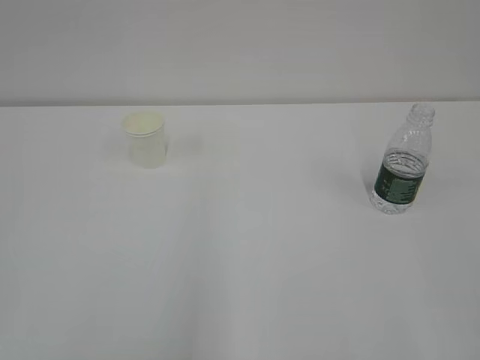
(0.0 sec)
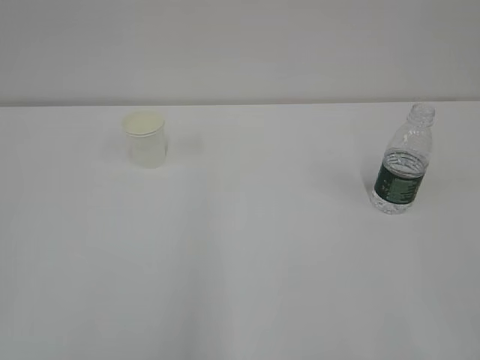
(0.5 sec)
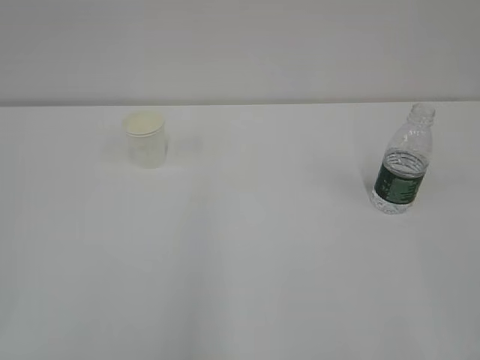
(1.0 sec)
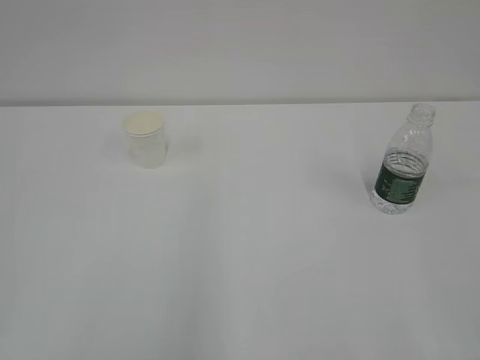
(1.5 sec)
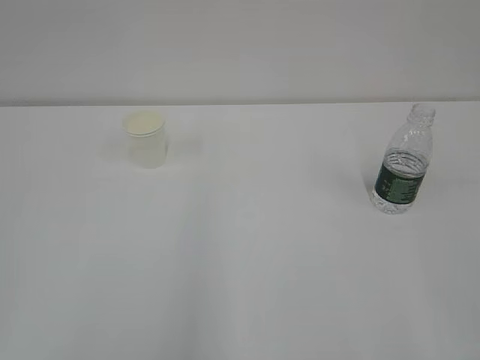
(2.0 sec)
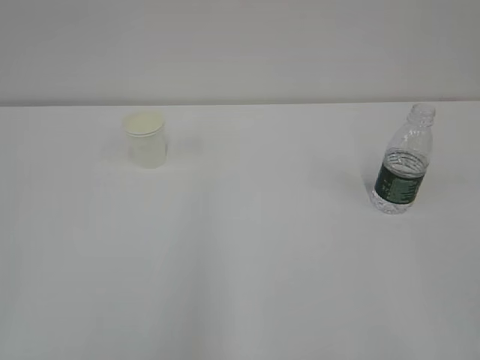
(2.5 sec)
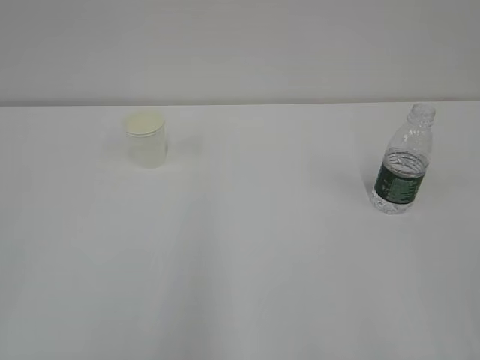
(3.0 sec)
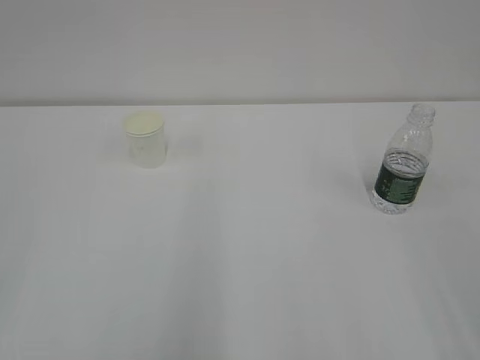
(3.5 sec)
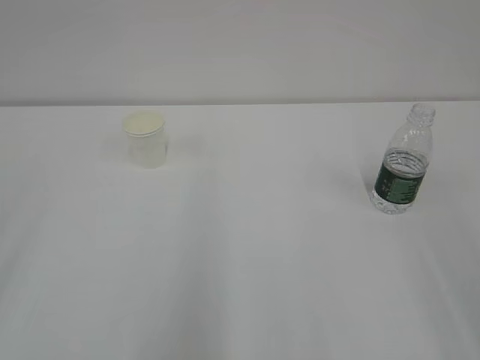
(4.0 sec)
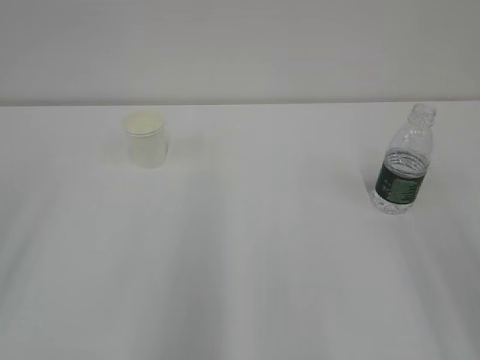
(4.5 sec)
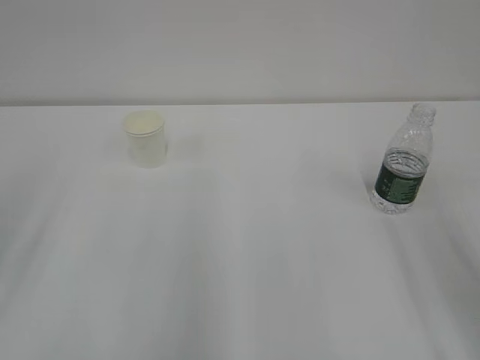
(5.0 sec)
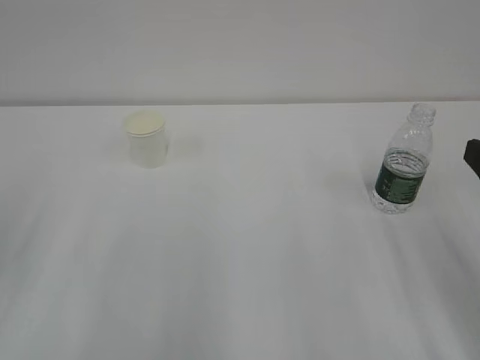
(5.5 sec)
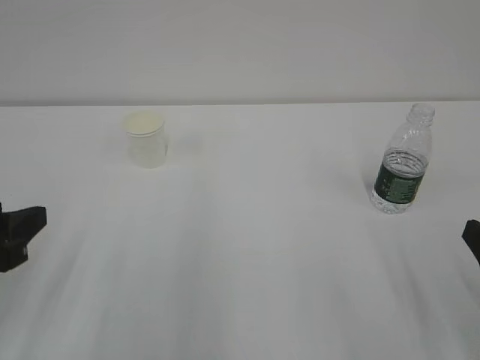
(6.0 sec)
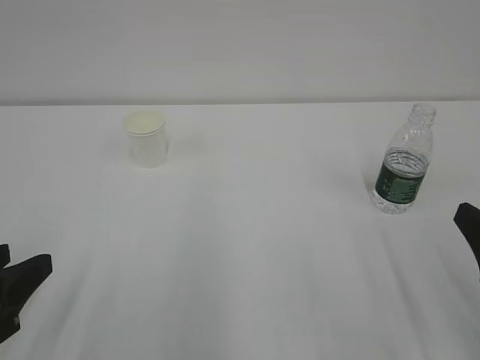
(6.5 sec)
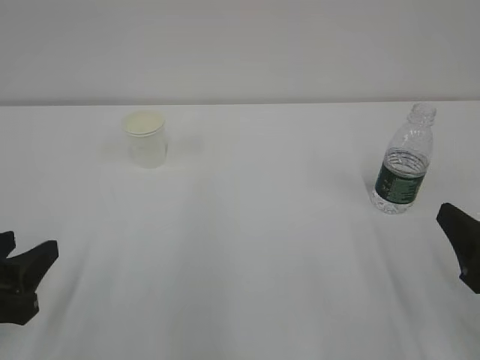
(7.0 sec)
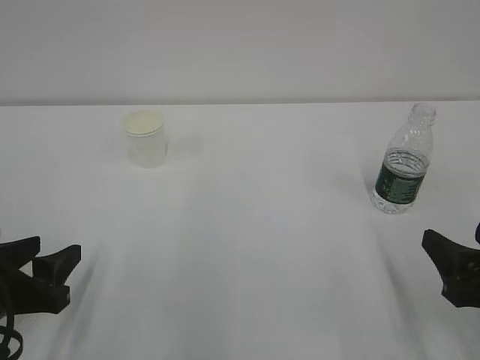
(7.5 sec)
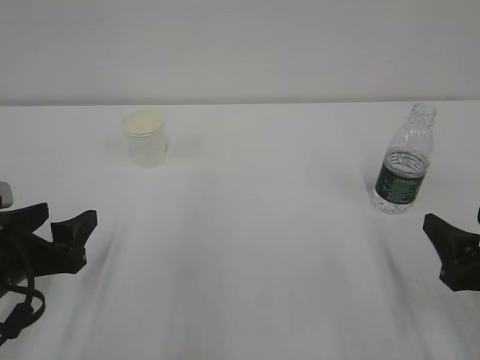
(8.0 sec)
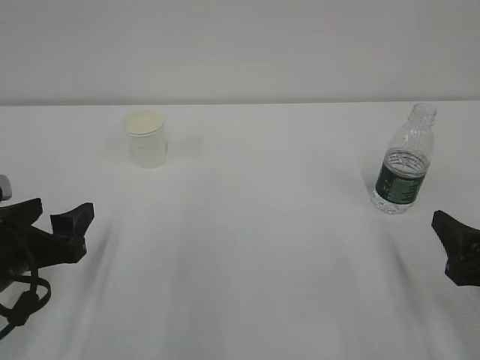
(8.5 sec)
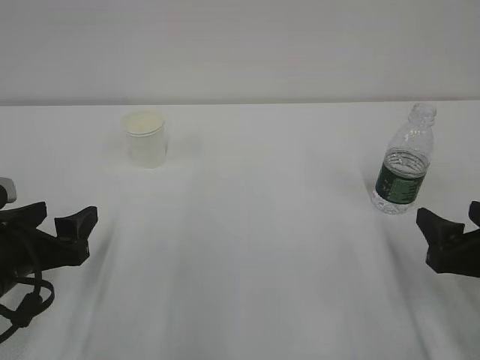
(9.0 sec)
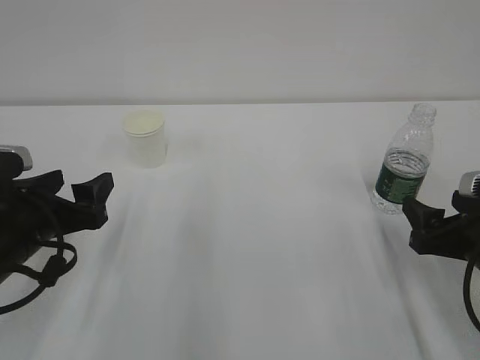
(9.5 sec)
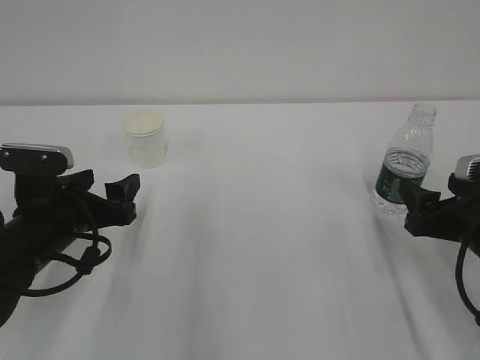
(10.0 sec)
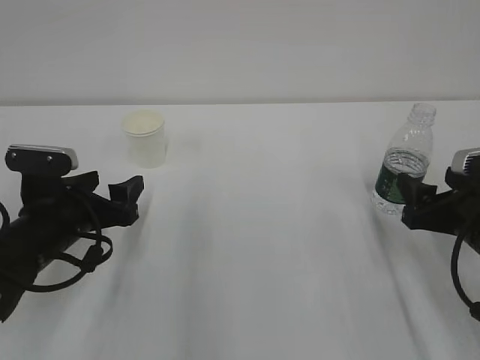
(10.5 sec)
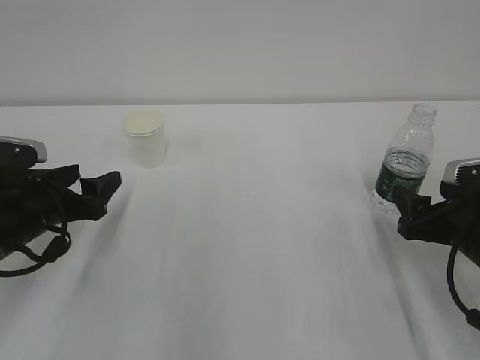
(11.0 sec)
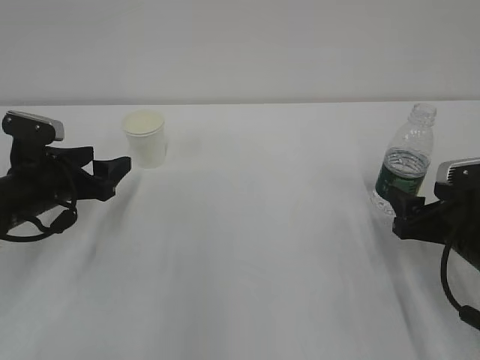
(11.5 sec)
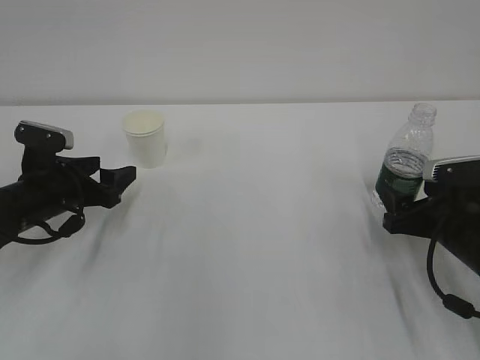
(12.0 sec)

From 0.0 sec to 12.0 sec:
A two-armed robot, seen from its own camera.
From 4.0 sec to 6.0 sec: The left gripper shifts about 15 cm downward and forward, and closes up.
From 6.0 sec to 8.0 sec: The left gripper goes about 5 cm downward, and opens.
From 8.0 sec to 10.0 sec: The grippers both shift forward by roughly 5 cm.
From 10.0 sec to 12.0 sec: The left gripper travels forward by approximately 5 cm.

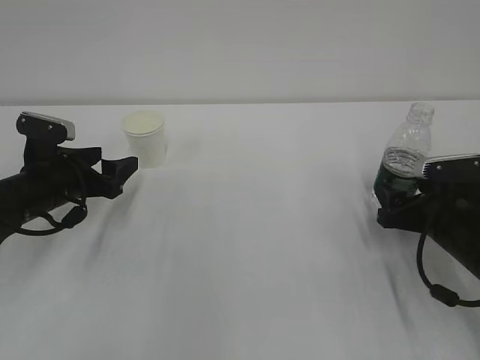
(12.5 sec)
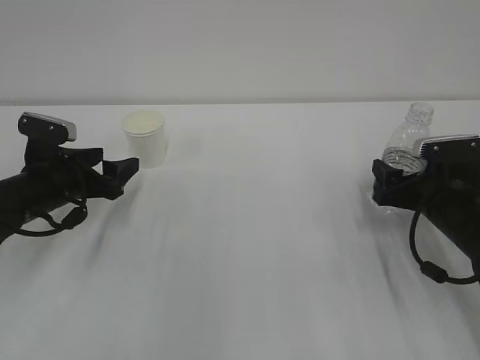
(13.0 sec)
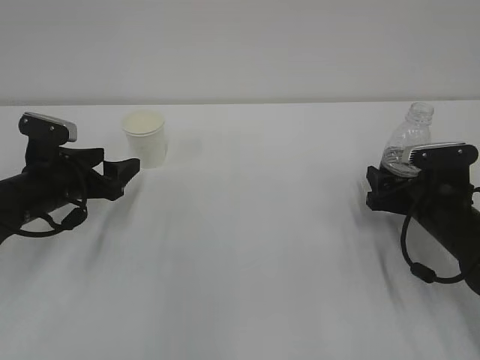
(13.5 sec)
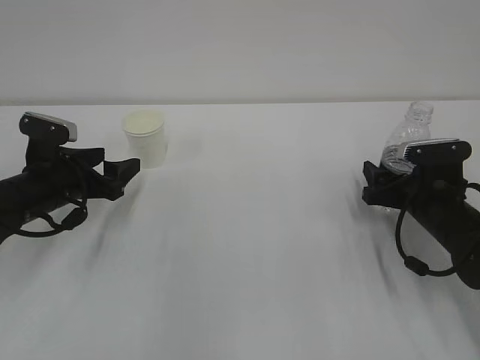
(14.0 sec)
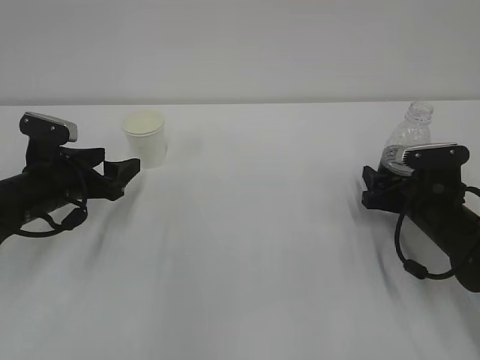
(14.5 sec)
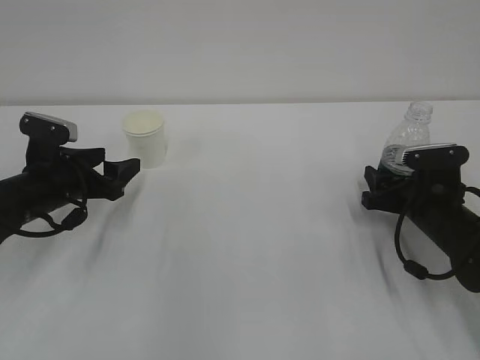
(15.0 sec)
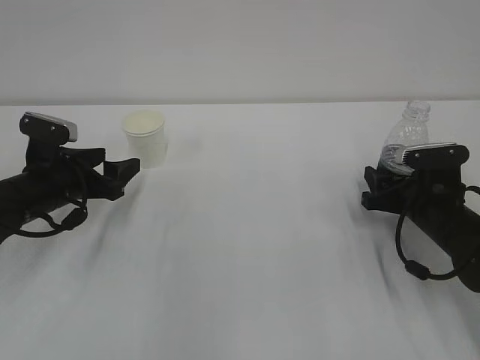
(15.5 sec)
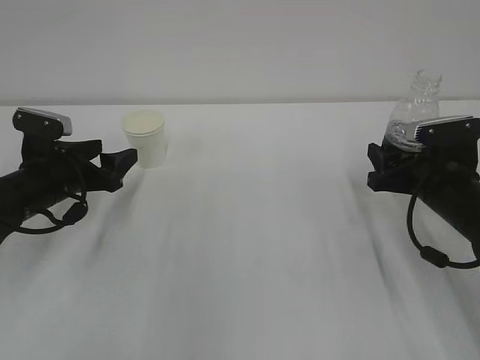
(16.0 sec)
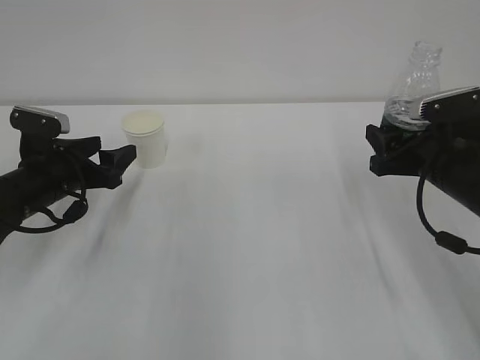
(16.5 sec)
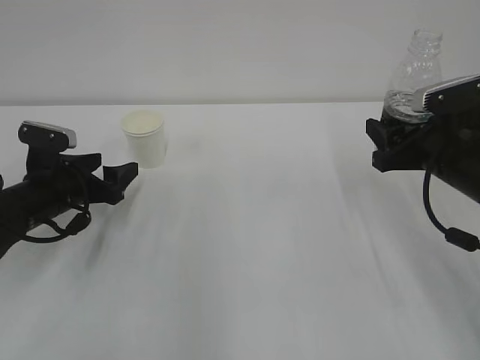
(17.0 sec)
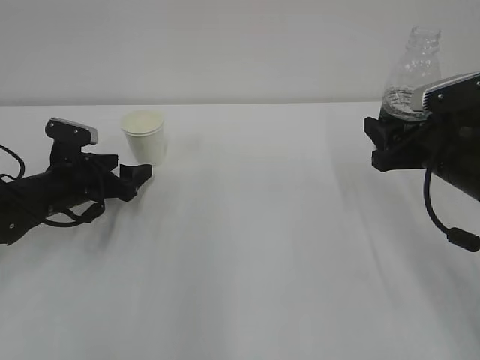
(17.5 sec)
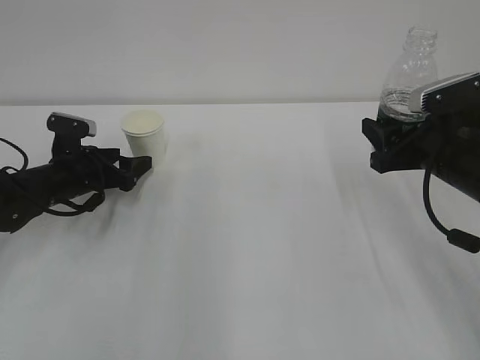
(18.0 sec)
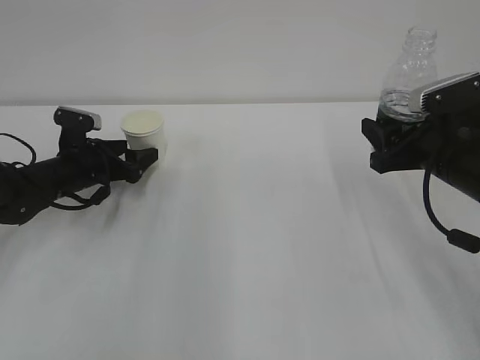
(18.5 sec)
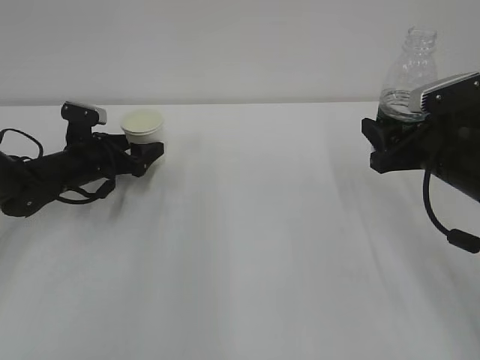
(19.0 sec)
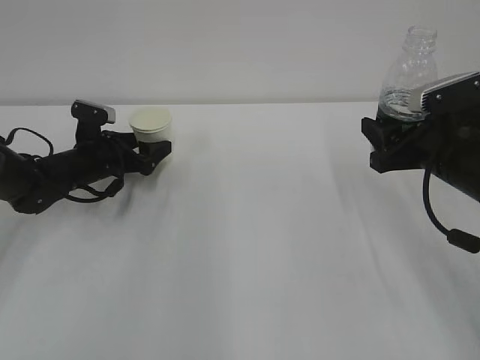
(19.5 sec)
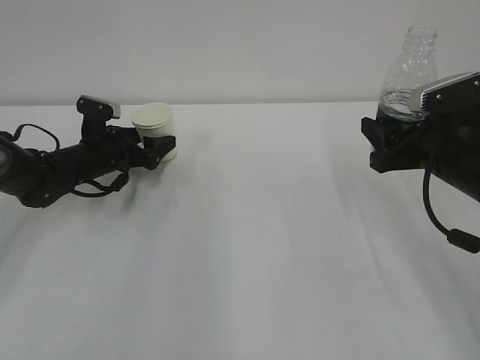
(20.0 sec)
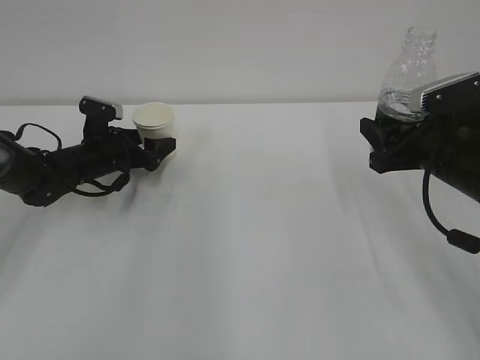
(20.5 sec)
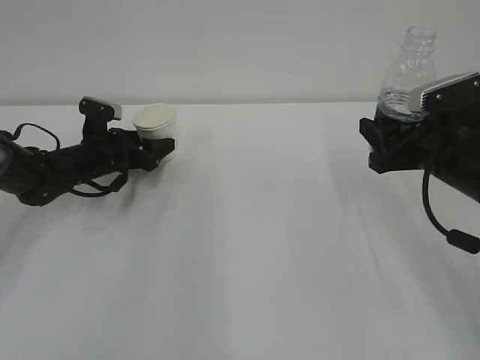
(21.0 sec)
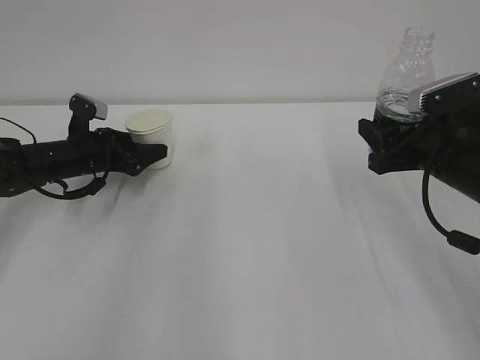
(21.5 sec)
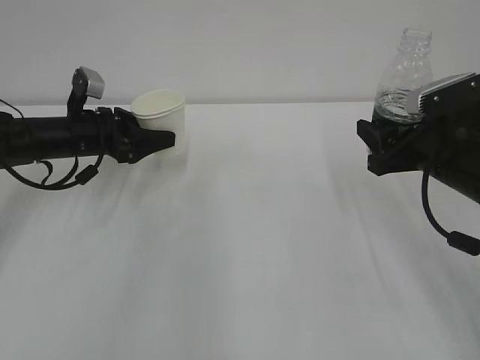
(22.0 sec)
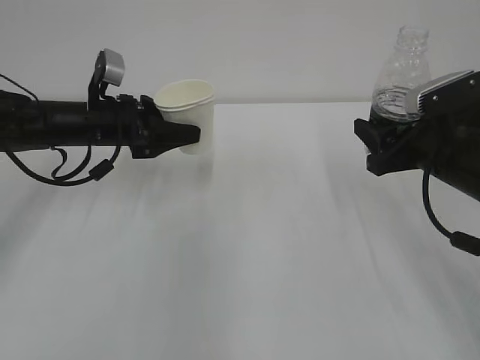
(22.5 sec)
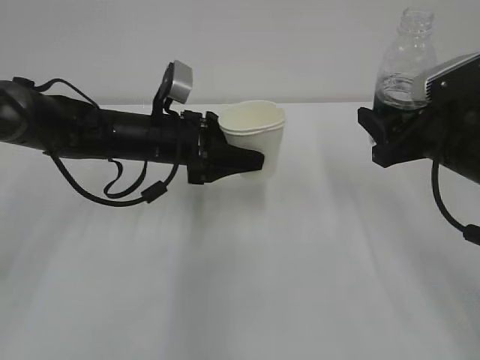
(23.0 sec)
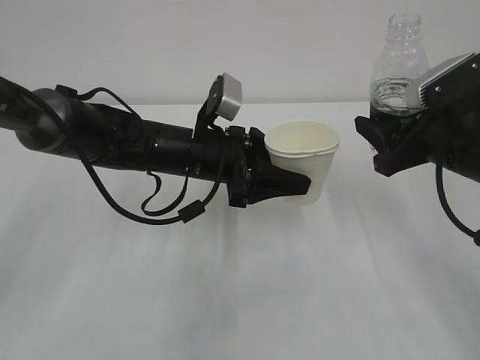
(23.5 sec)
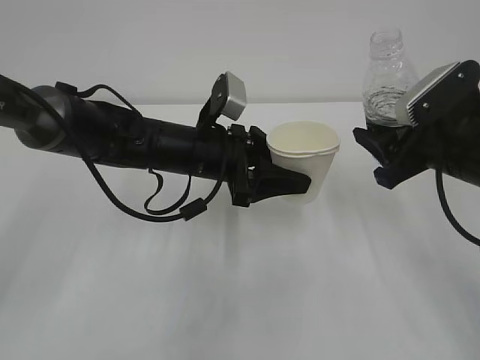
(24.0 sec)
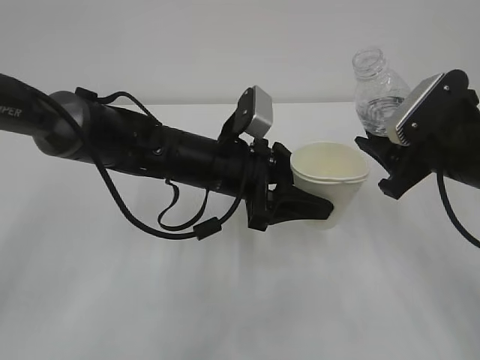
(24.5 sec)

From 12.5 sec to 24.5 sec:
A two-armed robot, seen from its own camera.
From 12.5 sec to 14.5 sec: The grippers make only small movements.
From 14.5 sec to 16.5 sec: The right gripper goes approximately 10 cm upward, and closes.
From 16.5 sec to 18.5 sec: The left gripper heads forward, covering about 5 cm.
From 18.5 sec to 20.5 sec: The grippers move only a little.
From 20.5 sec to 22.5 sec: The left gripper heads upward, covering roughly 10 cm, and closes.
From 22.5 sec to 24.5 sec: The left gripper goes some 20 cm to the right and backward.

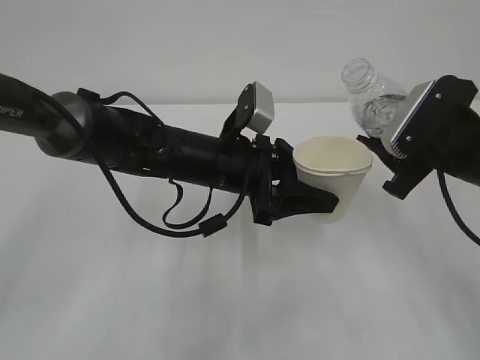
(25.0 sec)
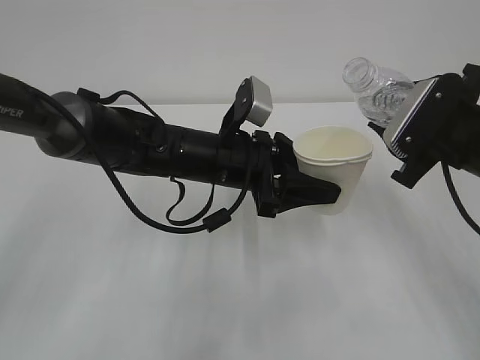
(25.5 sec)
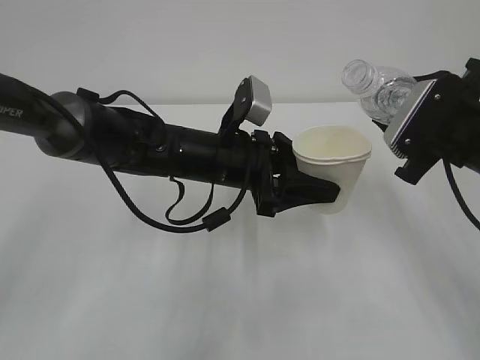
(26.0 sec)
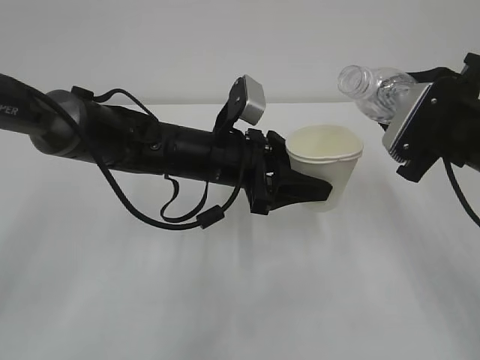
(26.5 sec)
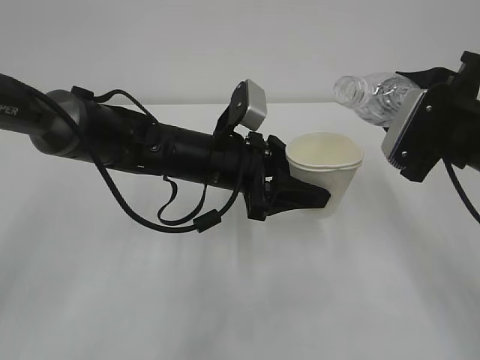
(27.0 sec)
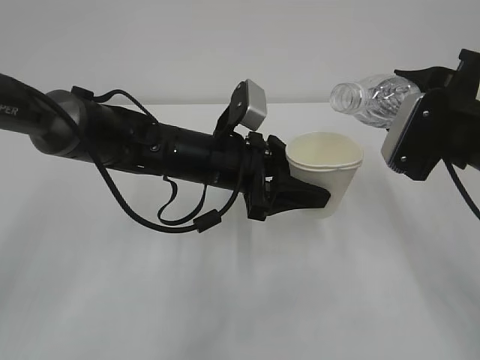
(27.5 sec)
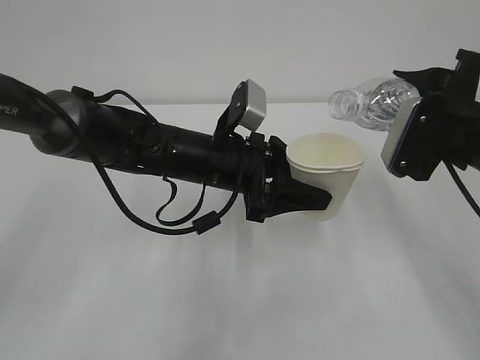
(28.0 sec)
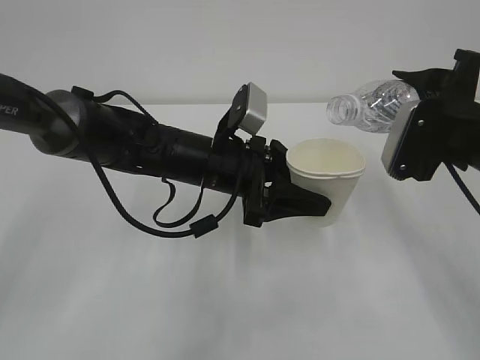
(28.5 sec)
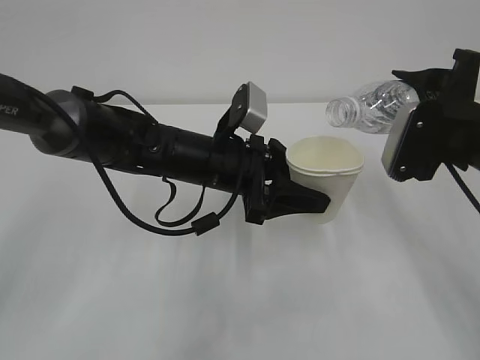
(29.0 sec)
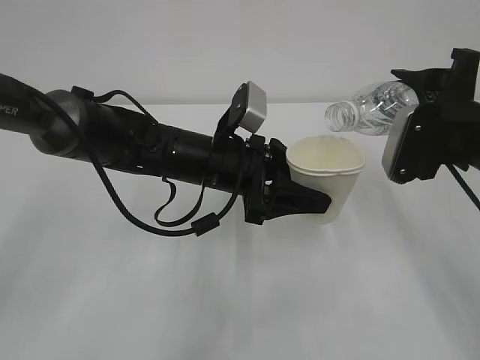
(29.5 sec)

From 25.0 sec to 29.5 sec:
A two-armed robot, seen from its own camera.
From 27.0 sec to 29.5 sec: There are only small adjustments of the grippers.
